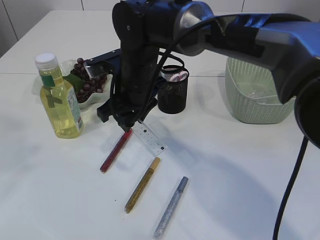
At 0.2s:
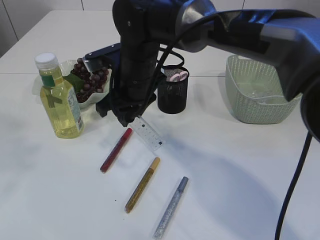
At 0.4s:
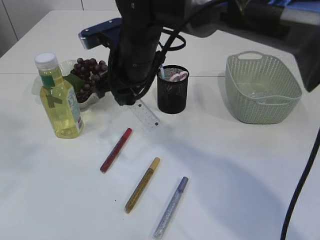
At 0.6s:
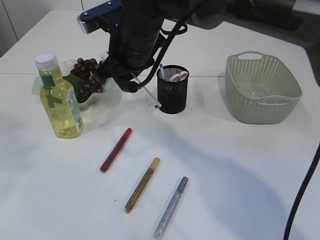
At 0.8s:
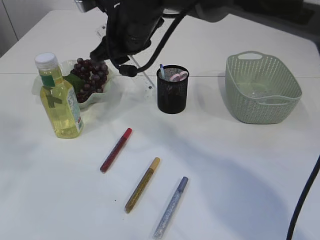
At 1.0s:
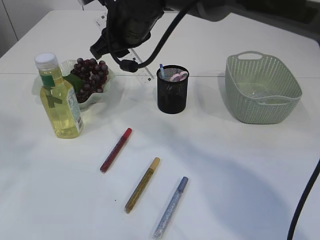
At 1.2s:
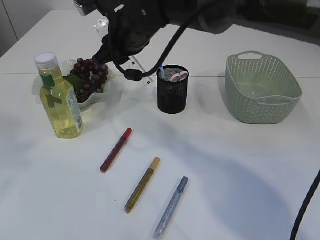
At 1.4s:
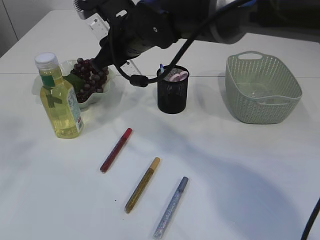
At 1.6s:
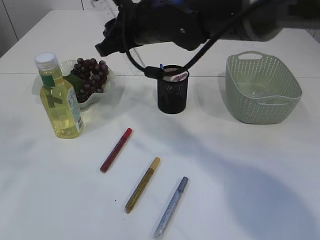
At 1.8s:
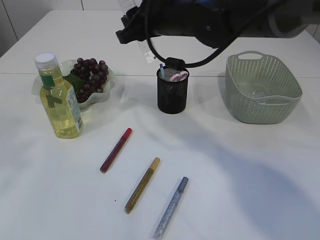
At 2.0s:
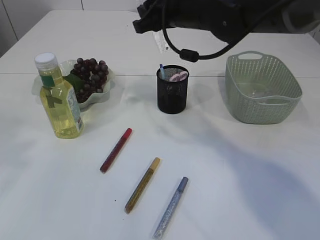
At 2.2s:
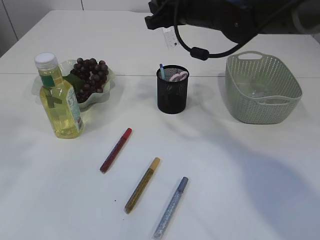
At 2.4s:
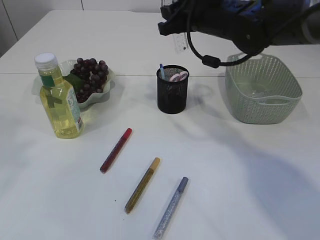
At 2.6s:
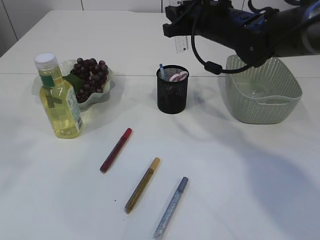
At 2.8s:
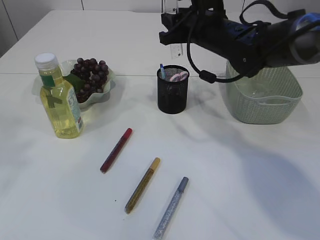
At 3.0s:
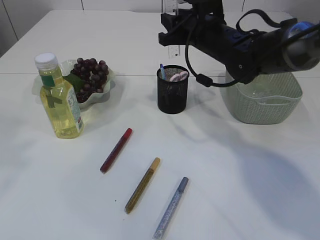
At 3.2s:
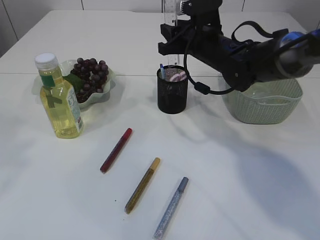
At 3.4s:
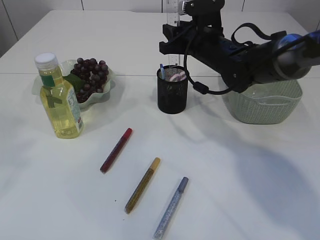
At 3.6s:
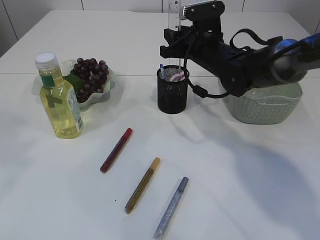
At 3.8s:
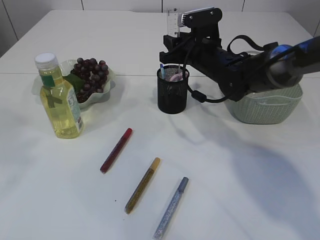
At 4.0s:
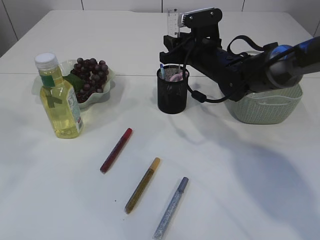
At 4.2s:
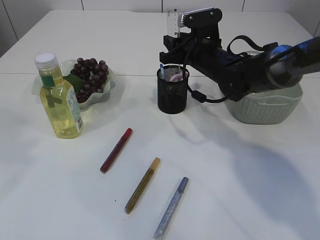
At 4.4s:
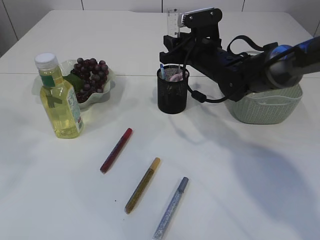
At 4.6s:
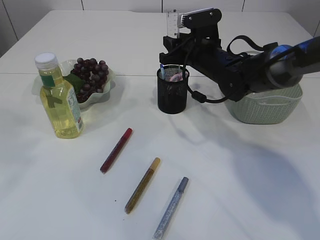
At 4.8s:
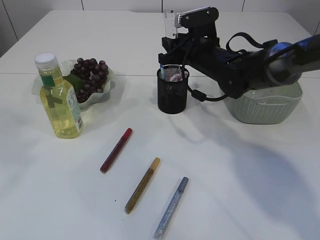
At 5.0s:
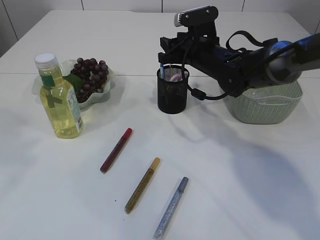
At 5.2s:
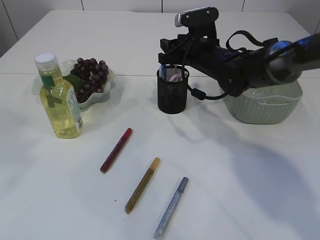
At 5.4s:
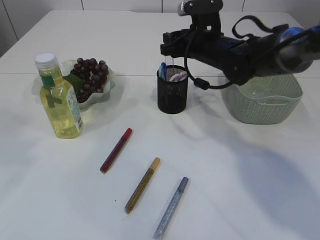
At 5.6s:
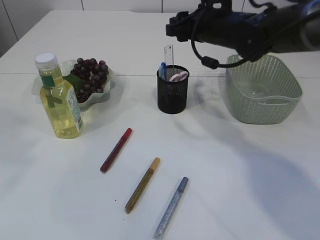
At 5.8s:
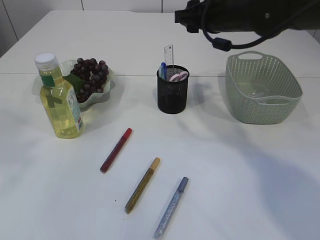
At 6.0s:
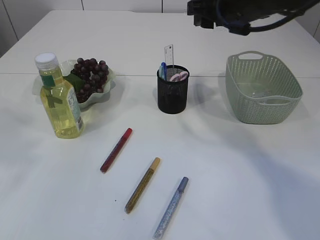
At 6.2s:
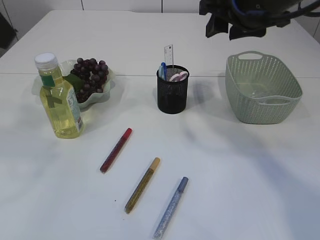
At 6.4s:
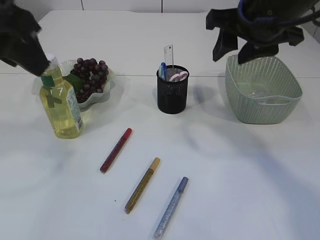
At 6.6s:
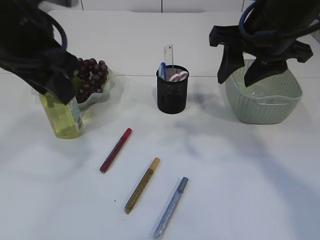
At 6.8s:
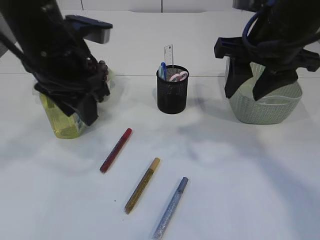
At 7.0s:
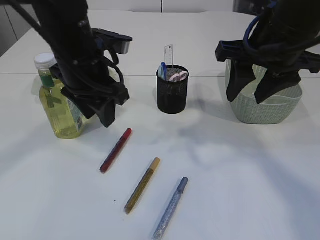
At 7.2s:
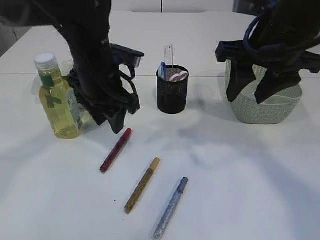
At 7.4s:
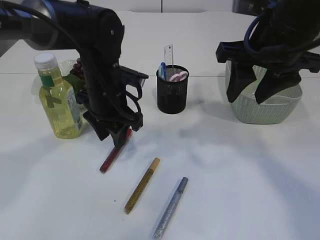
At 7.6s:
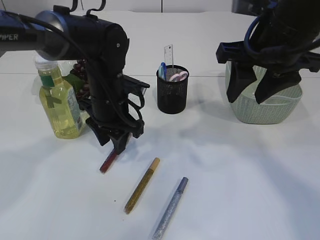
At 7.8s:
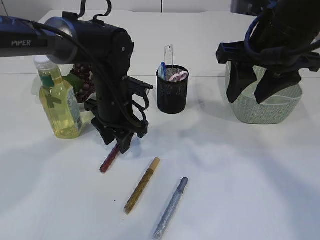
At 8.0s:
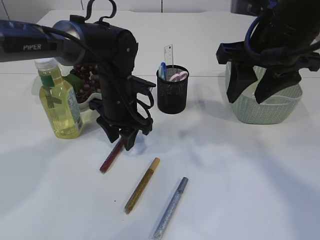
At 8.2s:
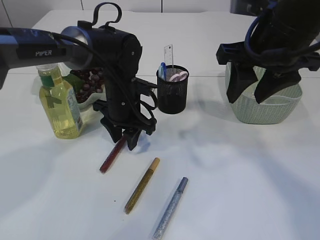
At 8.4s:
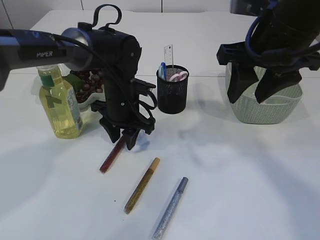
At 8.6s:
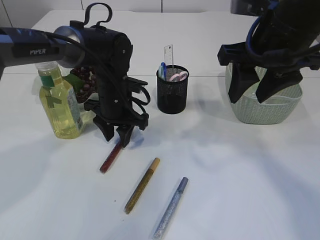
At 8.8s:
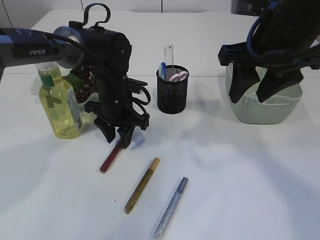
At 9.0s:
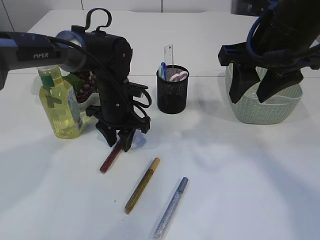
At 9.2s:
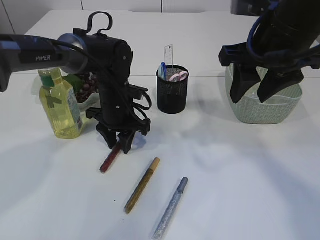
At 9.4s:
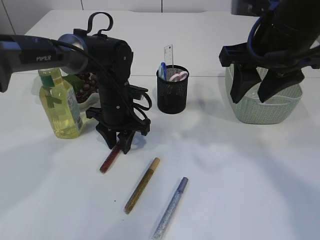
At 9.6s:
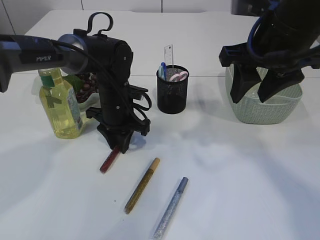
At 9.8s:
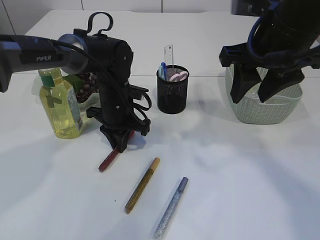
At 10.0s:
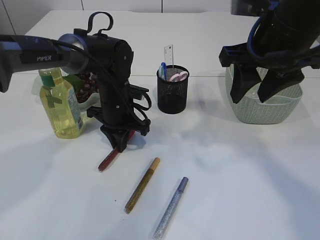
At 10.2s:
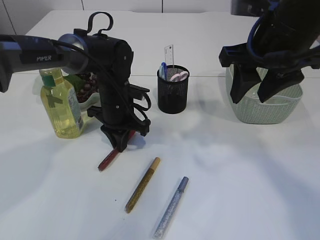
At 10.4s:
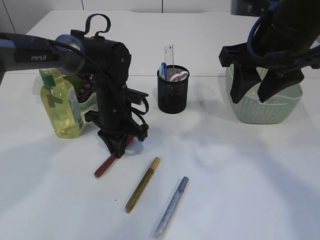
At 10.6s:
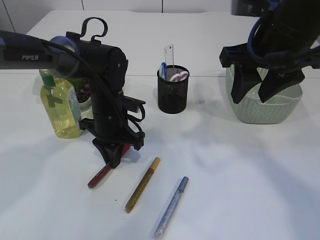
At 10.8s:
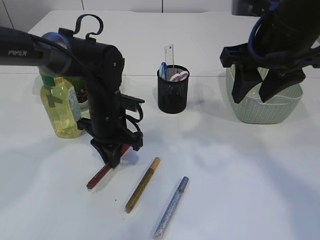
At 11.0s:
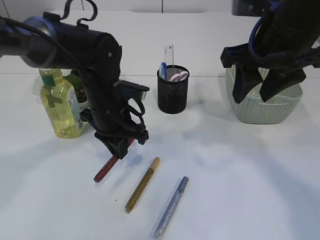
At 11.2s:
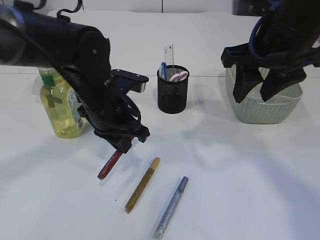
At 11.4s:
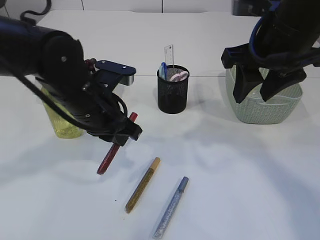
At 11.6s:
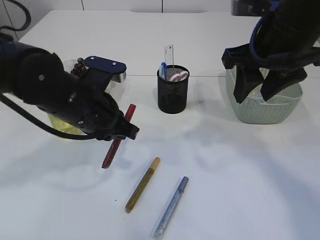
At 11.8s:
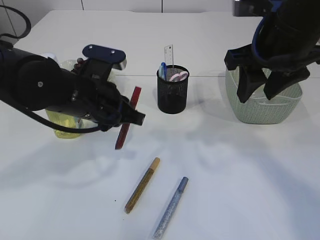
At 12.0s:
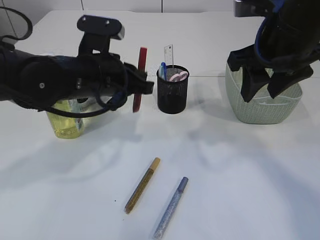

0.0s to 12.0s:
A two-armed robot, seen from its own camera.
Step, 0.2s to 5.8s: Place the ruler into the pen holder.
Step, 6.0s to 11.6s: pick up the red glue.
0.0s to 1.6s: The right gripper travels upward by approximately 5 cm.
1.6s to 3.0s: The right gripper heads to the right and forward, covering some 10 cm.
3.0s to 4.4s: There are only small adjustments of the grippers.
4.4s to 6.0s: The right gripper is displaced upward and backward by approximately 15 cm.
6.0s to 7.6s: The right gripper travels backward by approximately 10 cm; the left gripper moves downward, forward and to the right, approximately 35 cm.
7.6s to 9.0s: The left gripper changes place by approximately 5 cm.
9.0s to 10.4s: The left gripper closes its fingers.
10.4s to 12.0s: The left gripper is displaced upward and backward by roughly 15 cm.

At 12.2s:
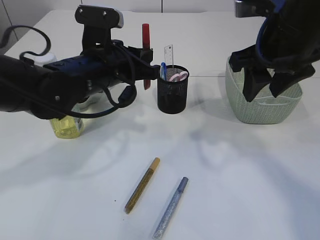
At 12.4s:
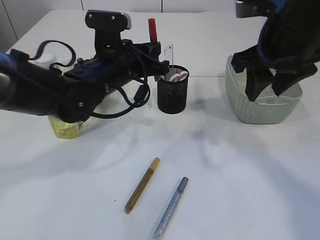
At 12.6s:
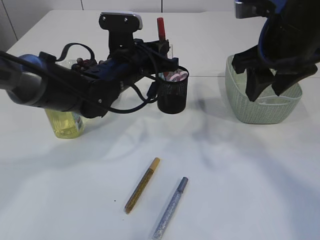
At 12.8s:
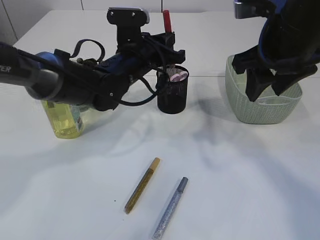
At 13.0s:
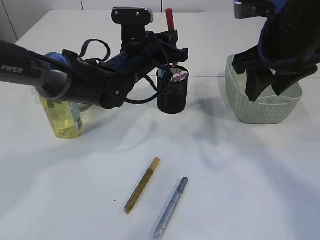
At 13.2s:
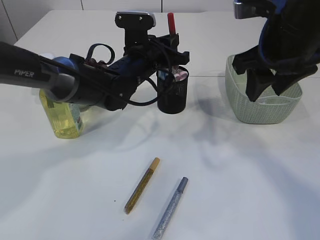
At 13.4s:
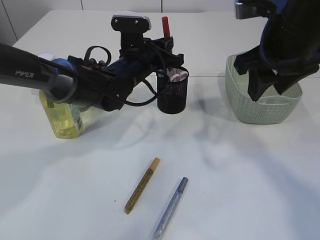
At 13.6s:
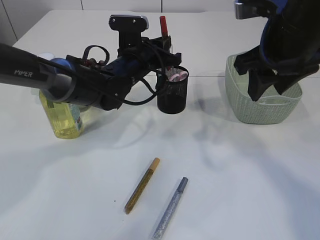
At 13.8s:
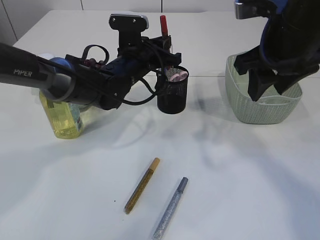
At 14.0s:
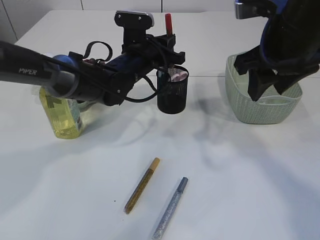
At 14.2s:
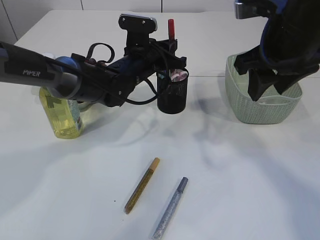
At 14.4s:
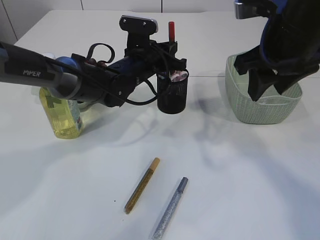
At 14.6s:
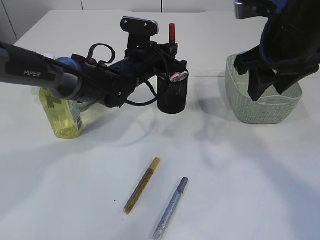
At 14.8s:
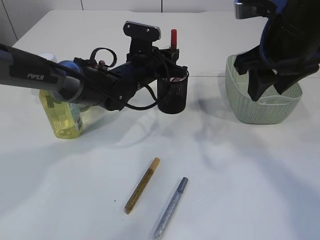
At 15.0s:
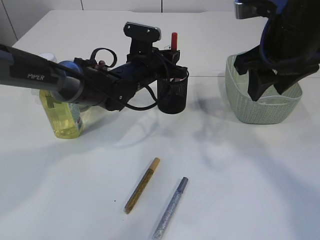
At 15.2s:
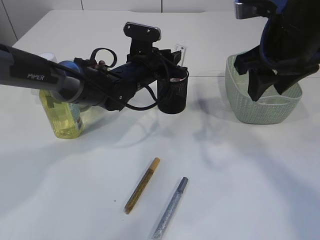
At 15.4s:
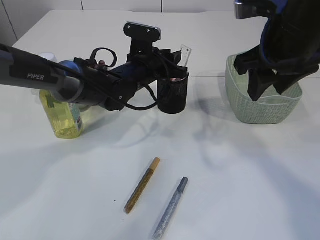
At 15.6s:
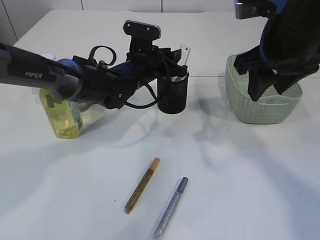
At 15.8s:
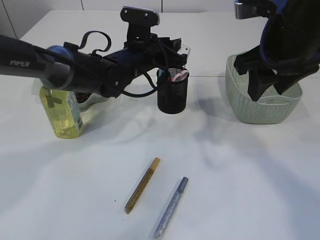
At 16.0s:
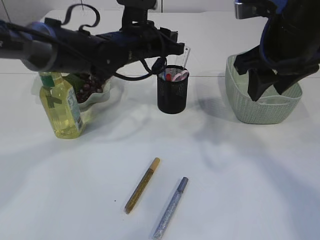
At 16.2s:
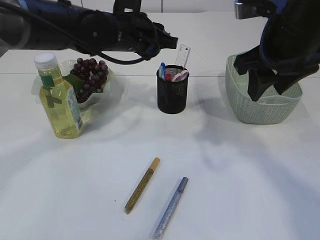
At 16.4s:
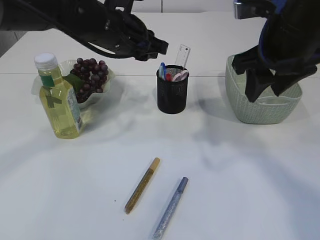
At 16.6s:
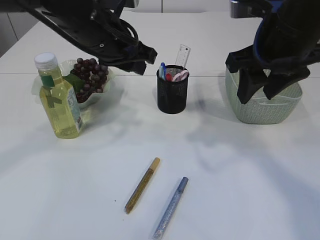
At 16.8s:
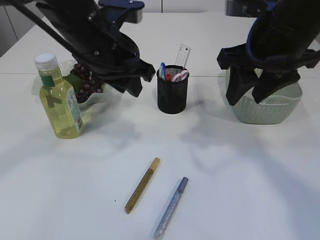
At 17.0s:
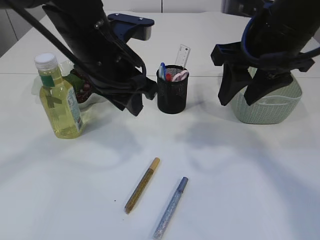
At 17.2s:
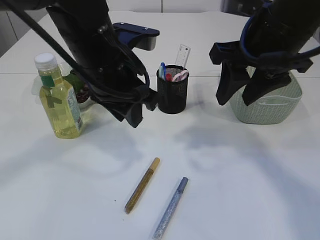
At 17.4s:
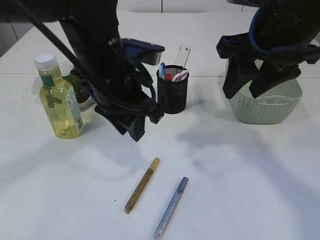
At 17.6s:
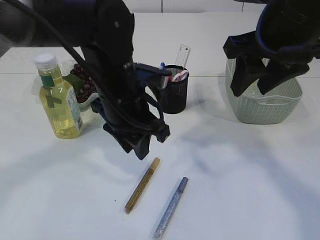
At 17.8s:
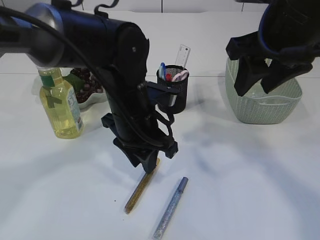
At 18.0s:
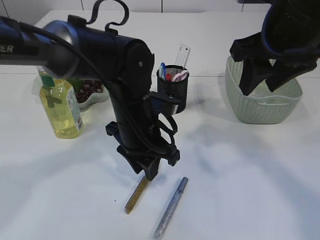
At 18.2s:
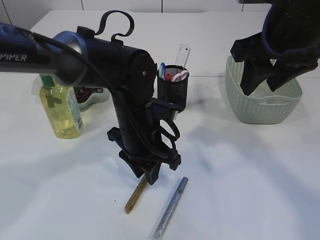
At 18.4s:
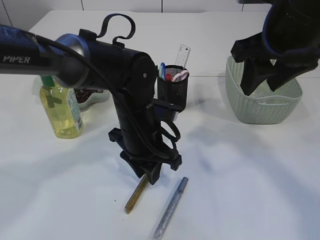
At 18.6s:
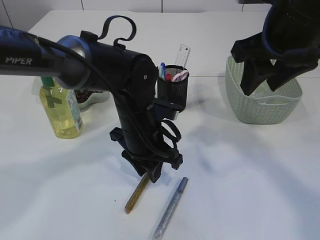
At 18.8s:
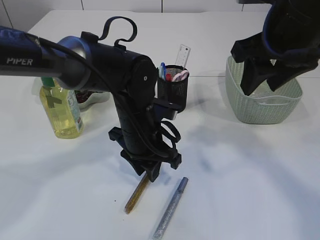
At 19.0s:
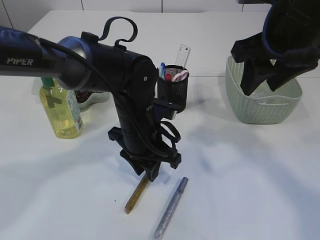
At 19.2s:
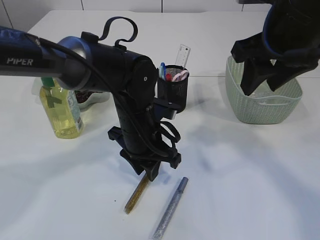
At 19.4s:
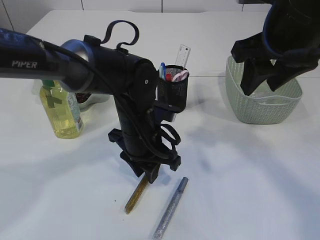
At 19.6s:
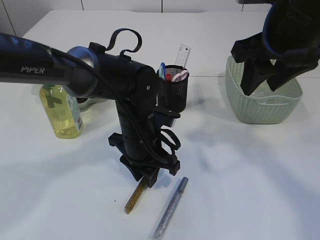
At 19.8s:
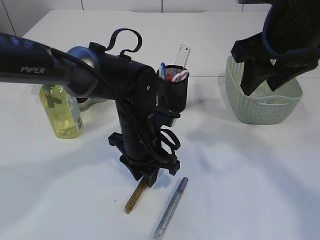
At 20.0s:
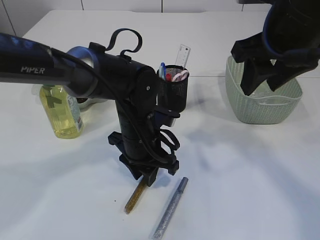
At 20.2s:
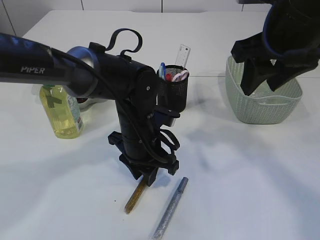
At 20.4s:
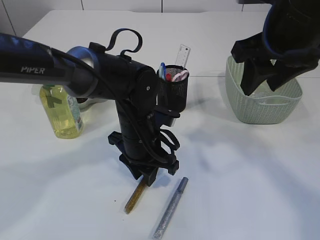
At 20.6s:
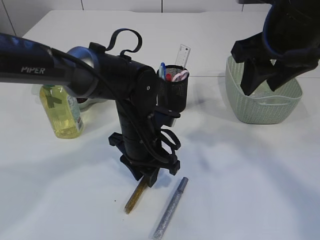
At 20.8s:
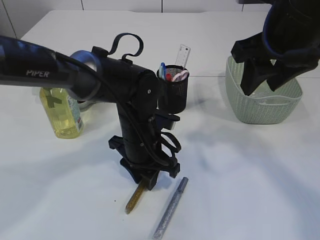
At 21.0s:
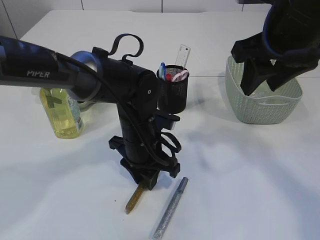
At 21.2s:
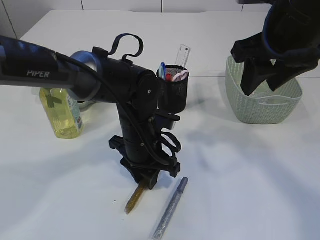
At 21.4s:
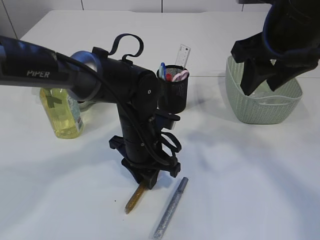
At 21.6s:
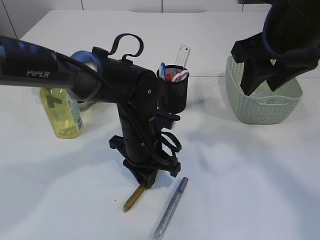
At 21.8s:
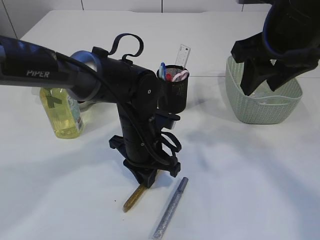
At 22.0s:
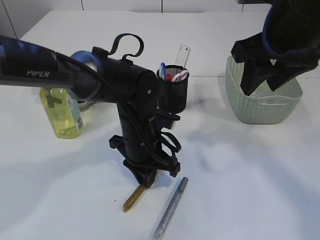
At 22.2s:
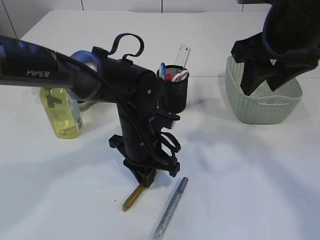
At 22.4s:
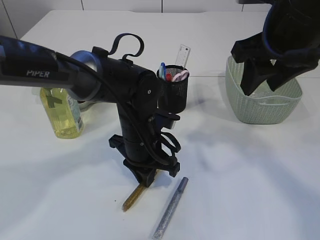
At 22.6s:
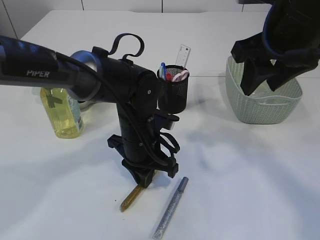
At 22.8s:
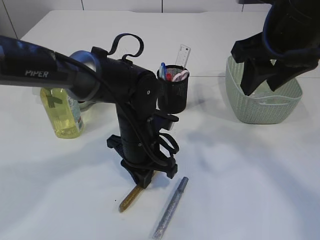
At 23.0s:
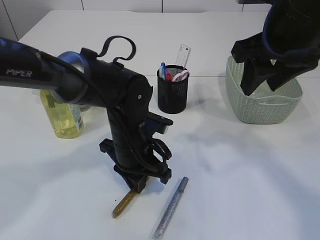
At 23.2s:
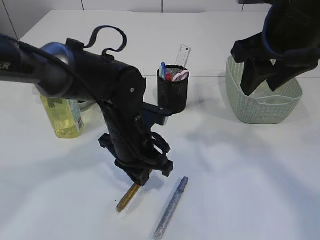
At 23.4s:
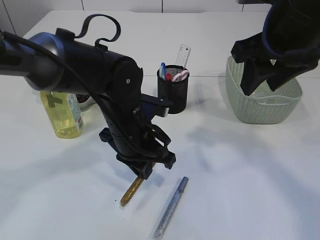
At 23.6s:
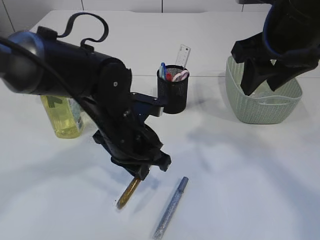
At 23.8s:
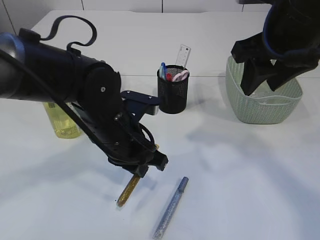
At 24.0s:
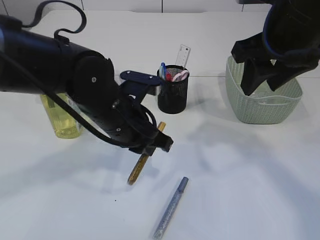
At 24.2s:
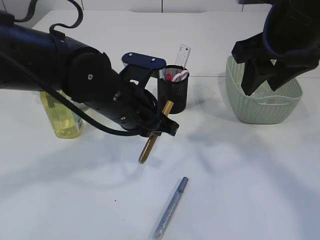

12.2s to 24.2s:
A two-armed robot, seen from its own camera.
Step, 12.2s to 16.0s: place the red glue into the pen holder.
Step, 16.2s to 24.0s: pick up the yellow glue.
12.2s to 13.8s: The left gripper moves forward, some 10 cm.
13.8s to 15.2s: The grippers move only a little.
15.2s to 16.6s: The left gripper goes some 15 cm upward and backward.
16.6s to 18.2s: The left gripper goes approximately 15 cm downward, backward and to the right.
18.2s to 19.8s: The grippers move only a little.
19.8s to 22.6s: Both grippers stay about where they are.
22.6s to 24.2s: The left gripper shifts roughly 10 cm upward.
